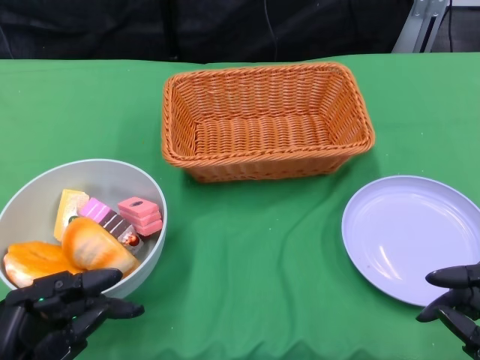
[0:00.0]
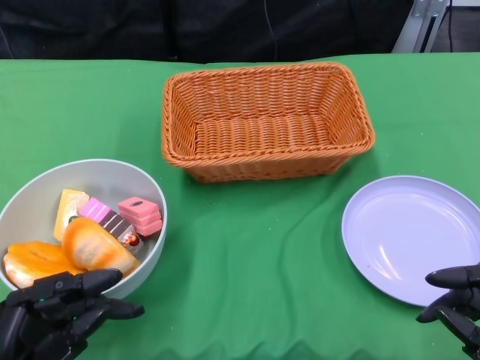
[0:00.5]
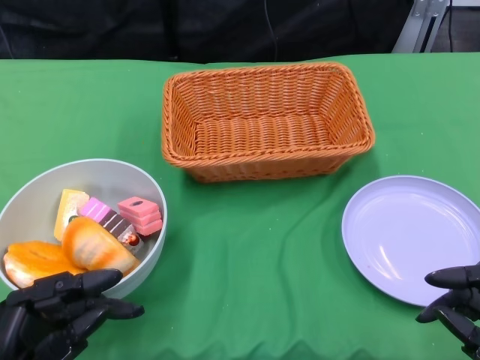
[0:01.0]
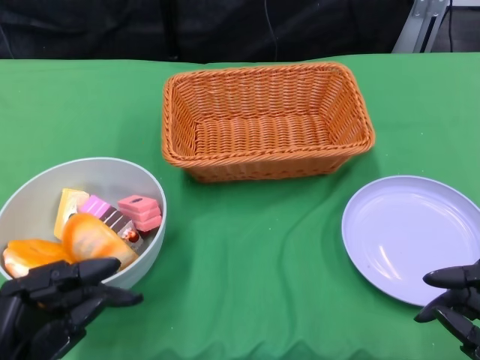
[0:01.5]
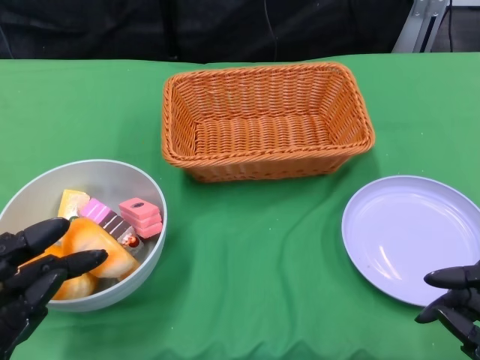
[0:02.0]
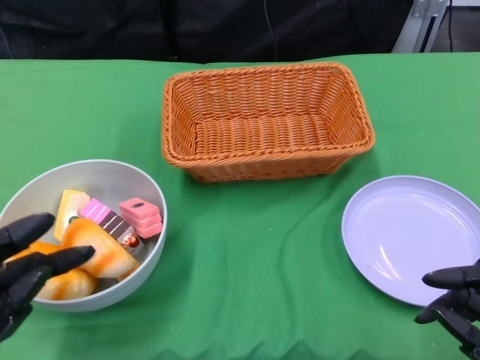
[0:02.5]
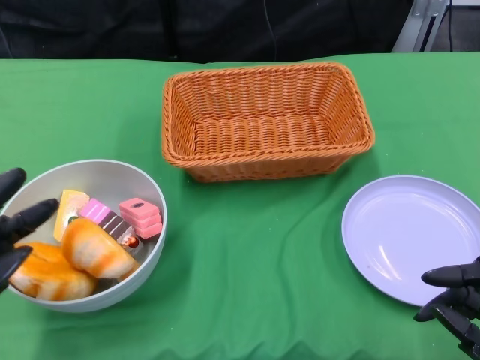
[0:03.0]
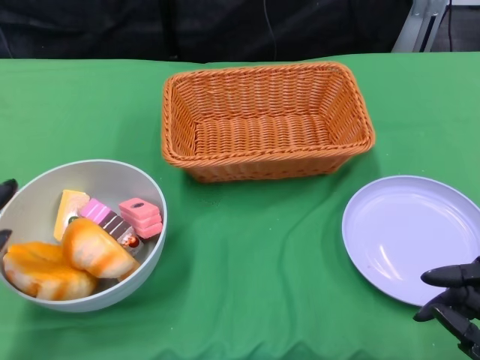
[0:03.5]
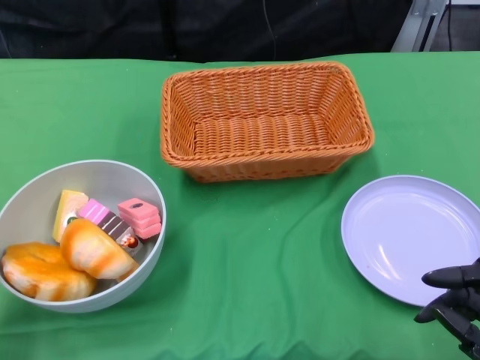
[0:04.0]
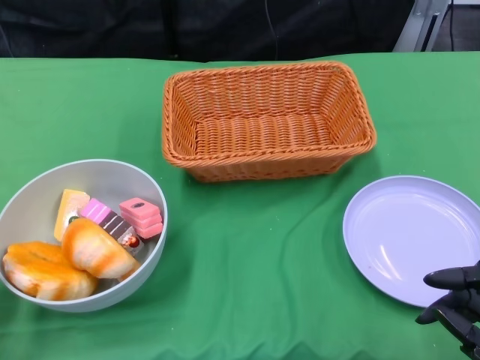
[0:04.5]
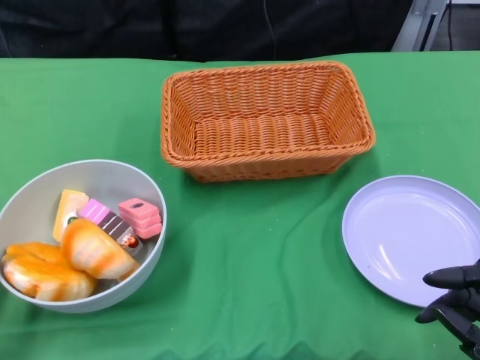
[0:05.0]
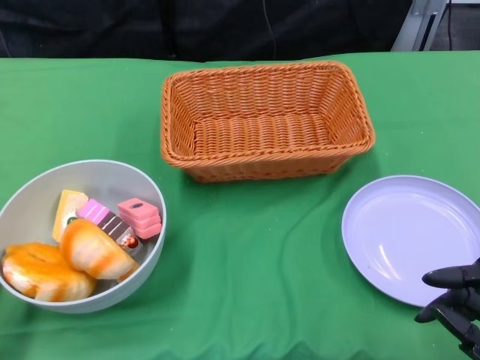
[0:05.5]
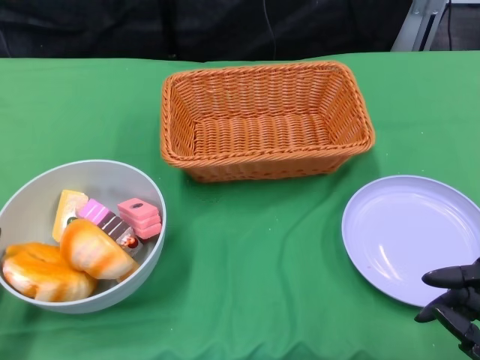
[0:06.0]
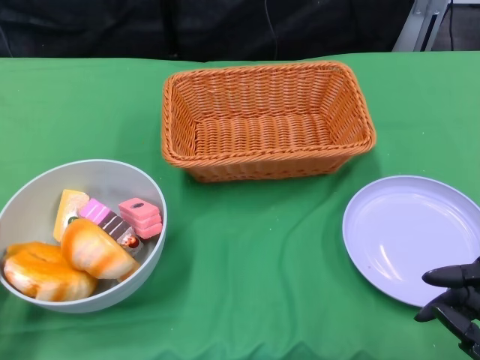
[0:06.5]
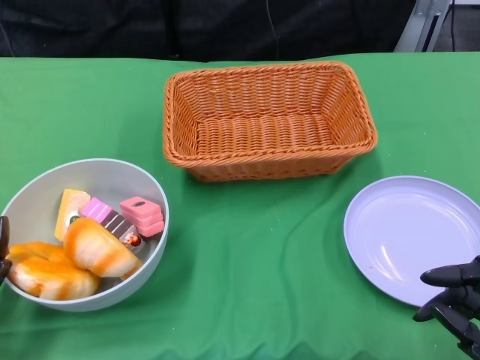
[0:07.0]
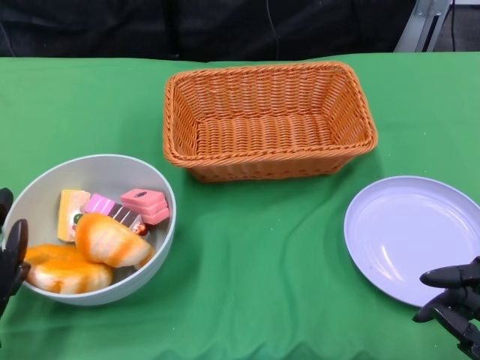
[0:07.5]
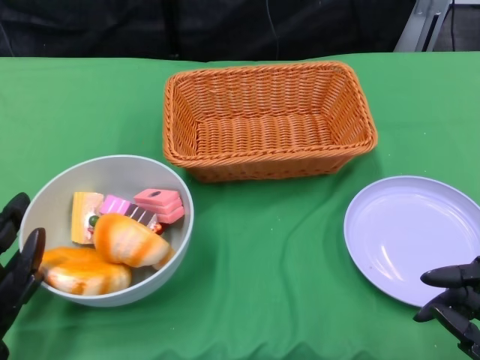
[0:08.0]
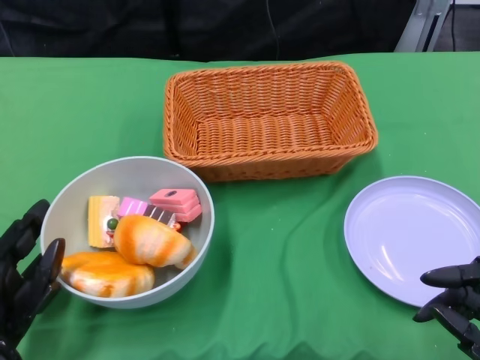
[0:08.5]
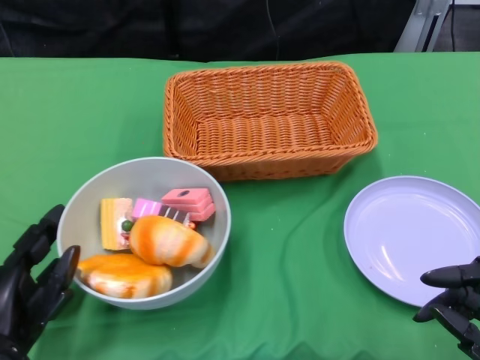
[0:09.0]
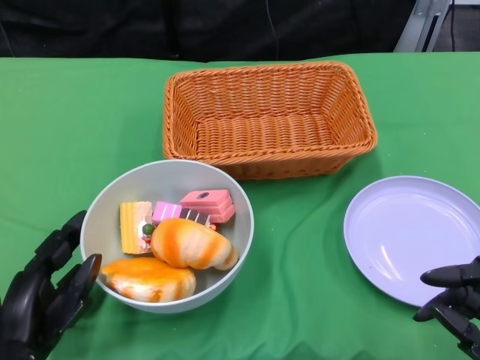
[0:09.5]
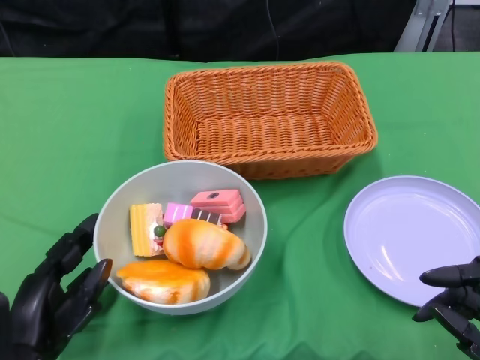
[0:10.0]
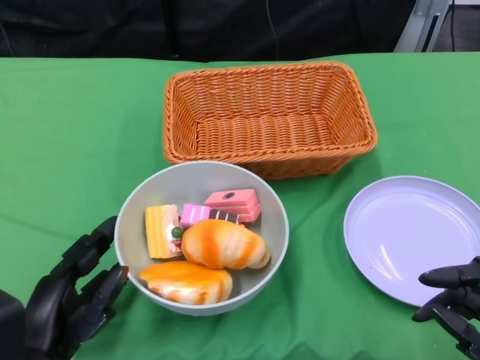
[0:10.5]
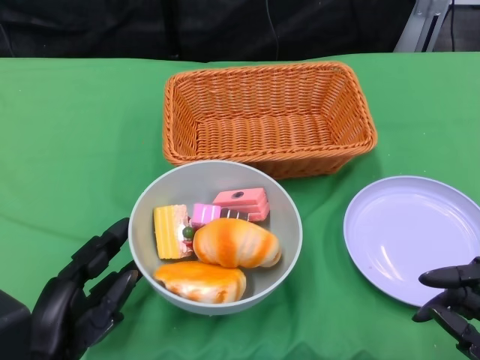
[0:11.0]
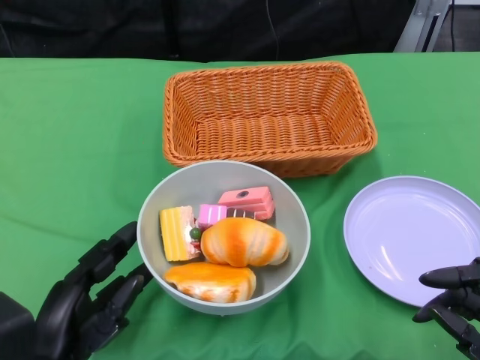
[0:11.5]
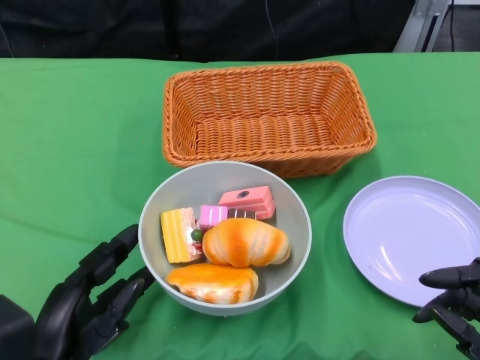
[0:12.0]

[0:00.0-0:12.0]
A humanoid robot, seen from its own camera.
0:02.0 to 0:04.0: The left hand travels to the left by some 5 cm.
0:06.0 to 0:08.0: There are only small adjustments of the hands.

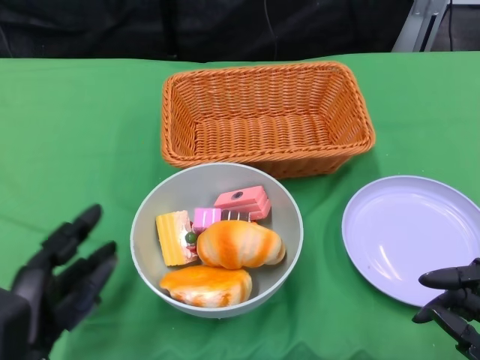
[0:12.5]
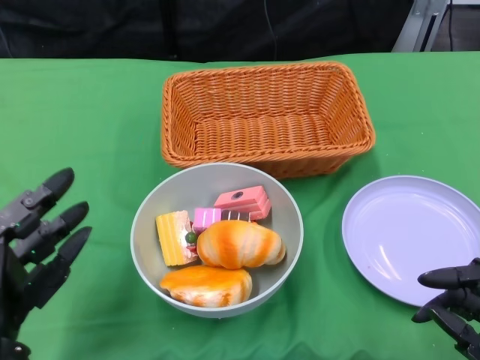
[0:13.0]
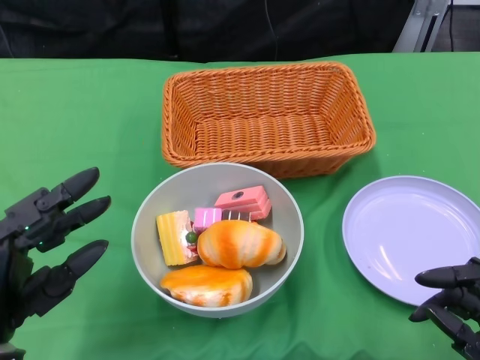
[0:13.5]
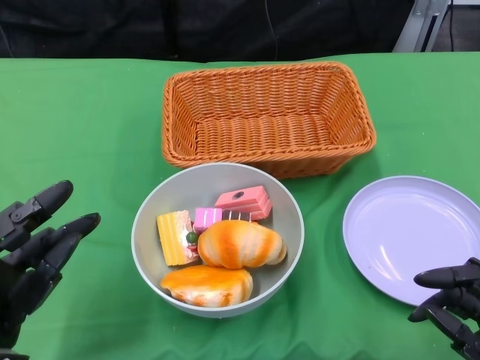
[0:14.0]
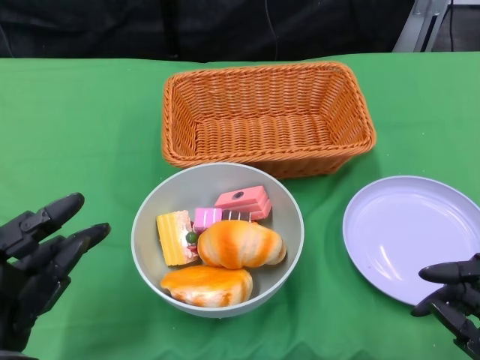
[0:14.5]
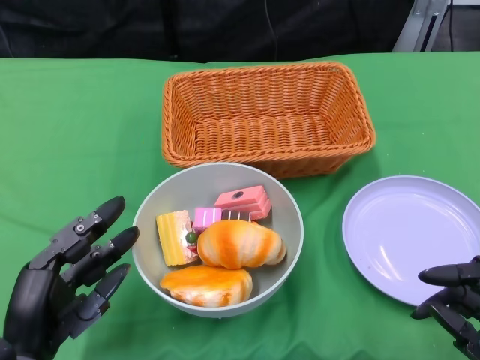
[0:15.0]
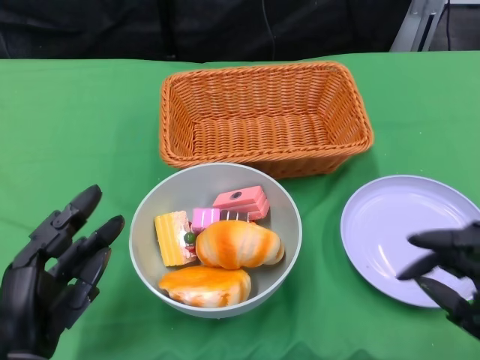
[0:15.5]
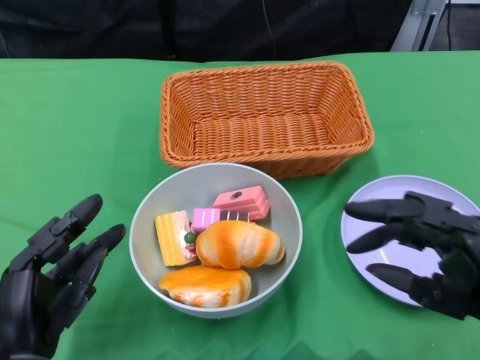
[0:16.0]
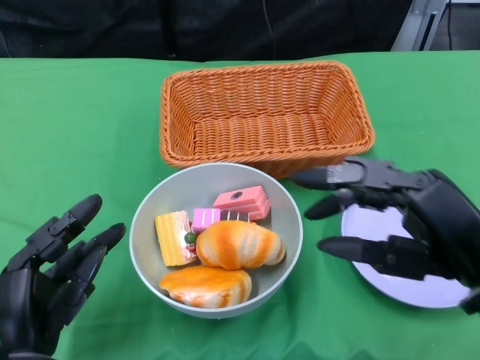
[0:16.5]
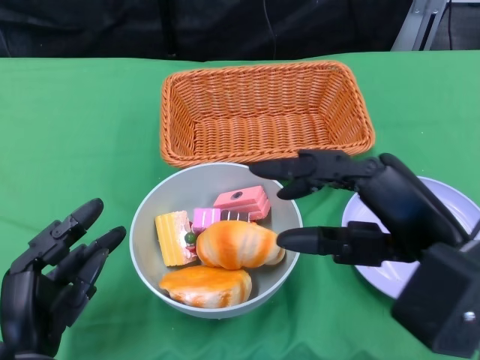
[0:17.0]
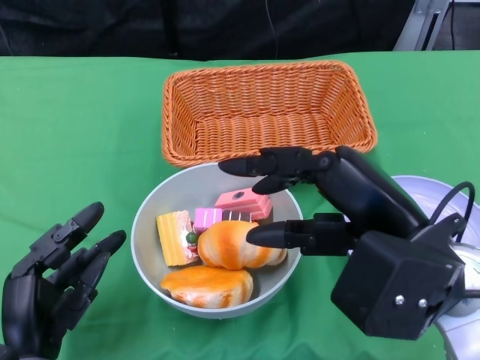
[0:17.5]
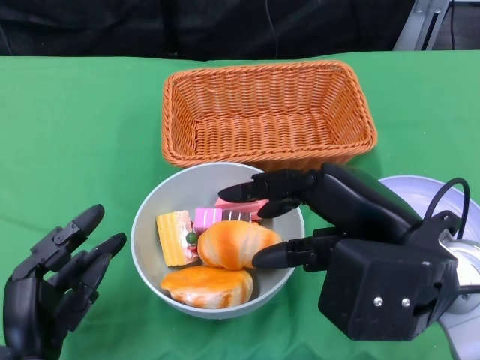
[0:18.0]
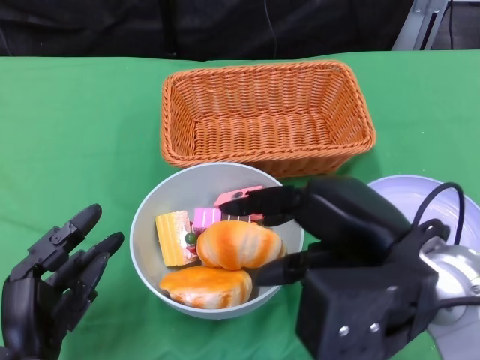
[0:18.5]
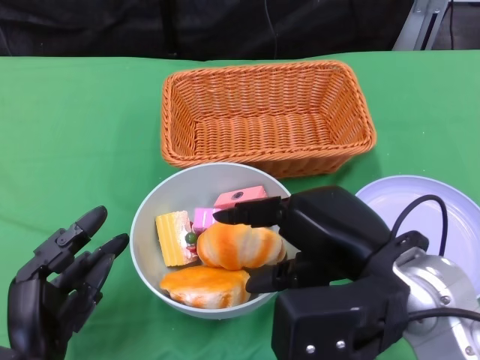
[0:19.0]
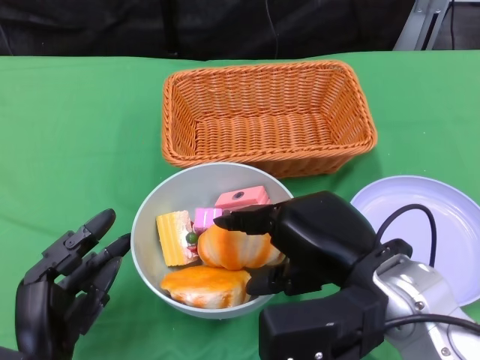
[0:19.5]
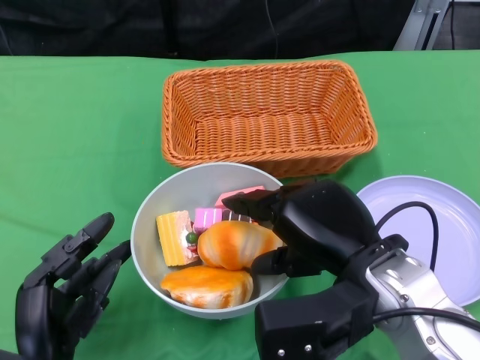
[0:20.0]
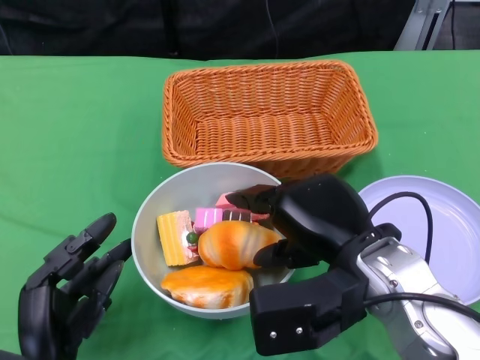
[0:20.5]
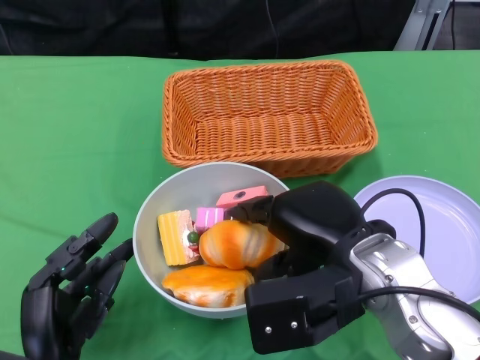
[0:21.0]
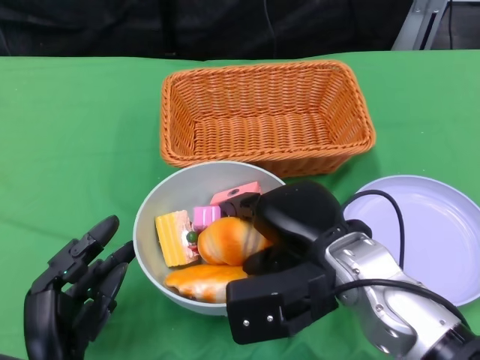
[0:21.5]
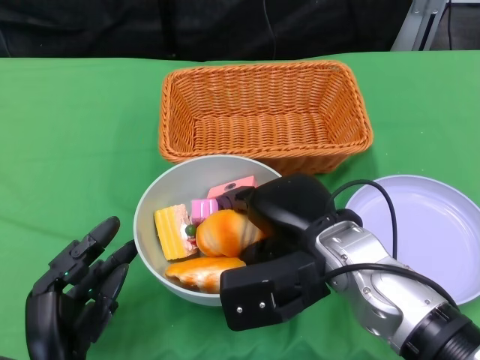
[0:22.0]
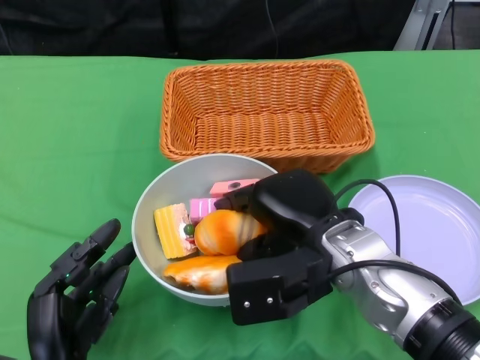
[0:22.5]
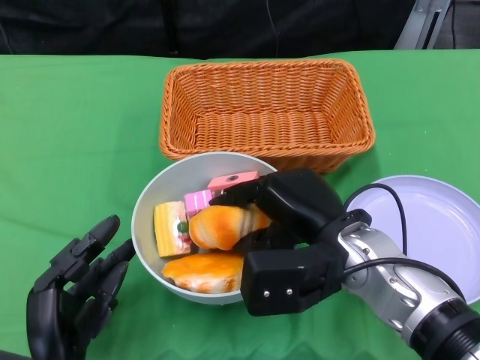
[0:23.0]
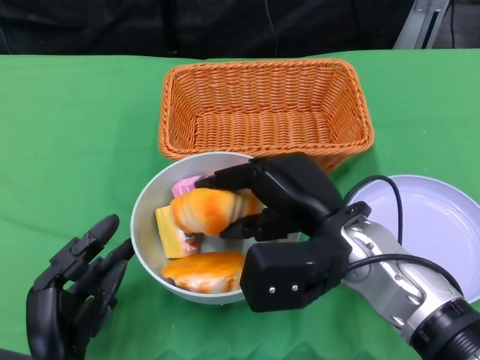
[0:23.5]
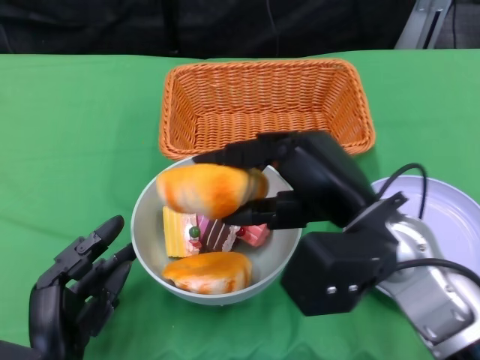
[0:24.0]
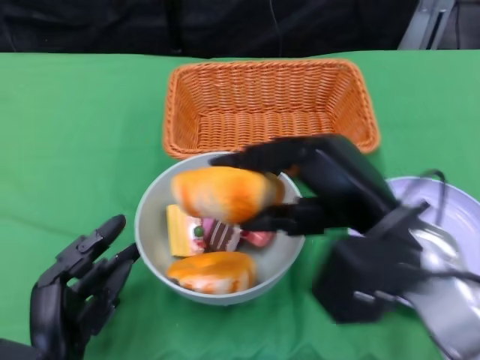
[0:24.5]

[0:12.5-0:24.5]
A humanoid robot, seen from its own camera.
0:14.5 to 0:16.5: The right hand goes roughly 15 cm upward, to the left and forward.
0:16.5 to 0:18.5: The right hand shifts roughly 5 cm to the left.
0:18.5 to 0:20.5: The right hand goes roughly 5 cm downward.
0:20.5 to 0:22.5: The right hand moves some 5 cm.
0:22.5 to 0:24.5: The right hand moves upward, roughly 5 cm.

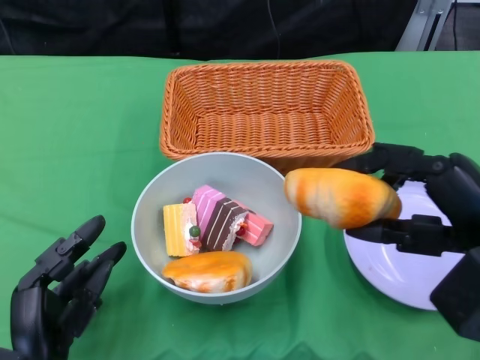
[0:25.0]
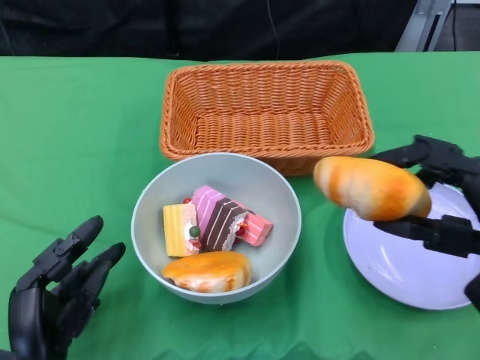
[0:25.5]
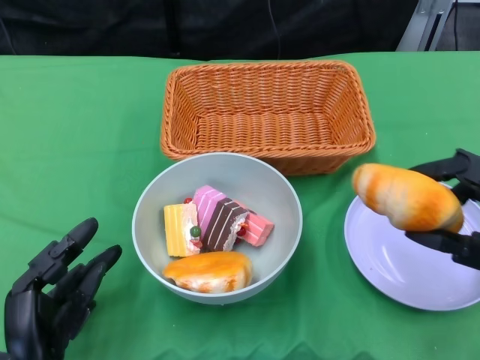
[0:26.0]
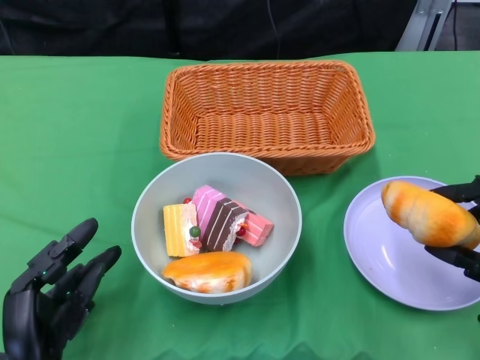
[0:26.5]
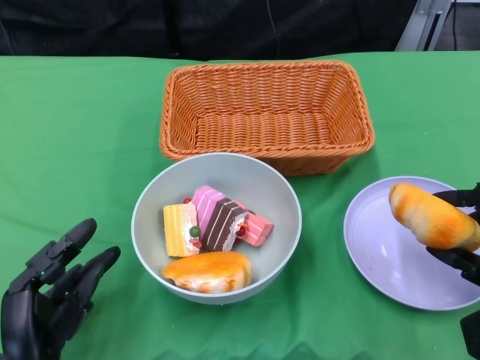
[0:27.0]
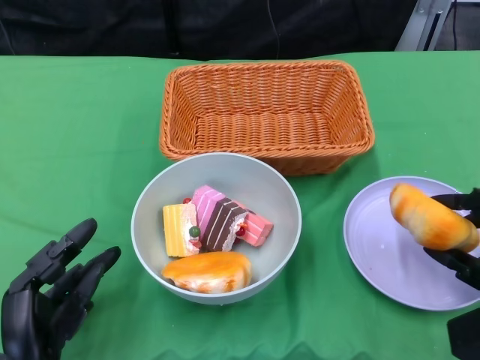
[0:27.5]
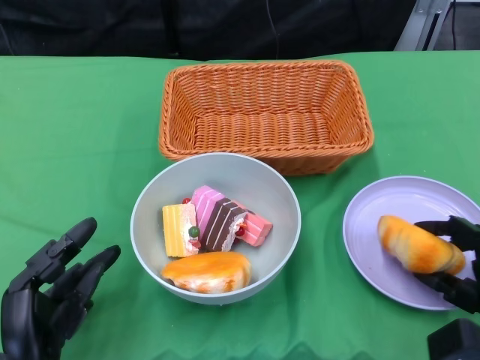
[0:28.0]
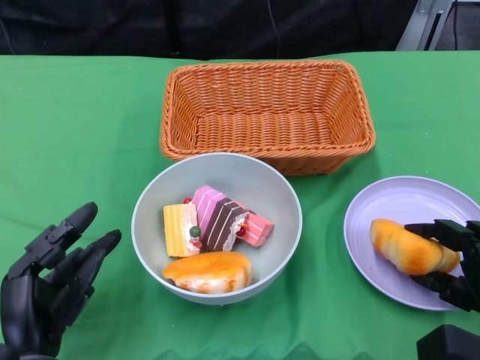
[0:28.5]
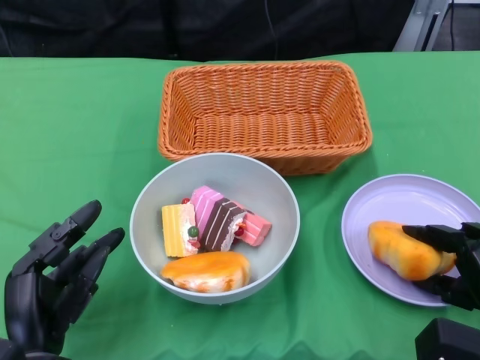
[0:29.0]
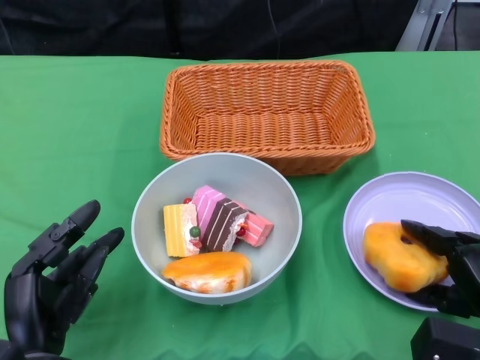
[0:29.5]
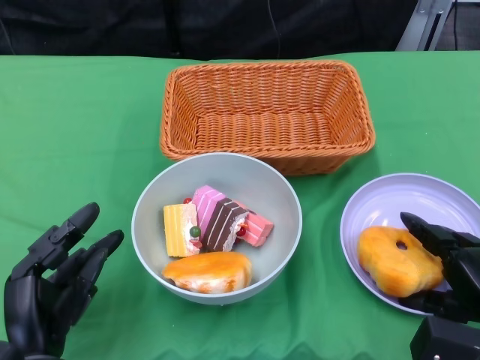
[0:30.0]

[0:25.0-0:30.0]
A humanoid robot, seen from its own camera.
0:25.0 to 0:27.5: The right hand shifts approximately 15 cm downward.
